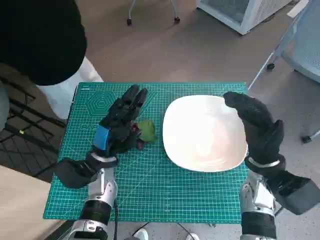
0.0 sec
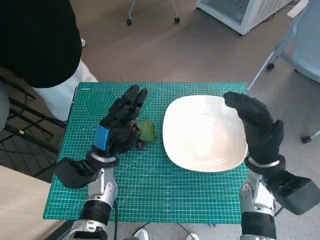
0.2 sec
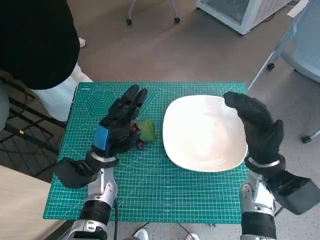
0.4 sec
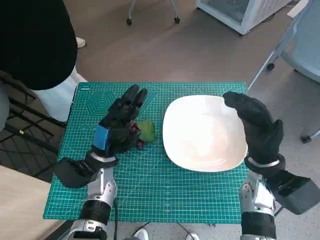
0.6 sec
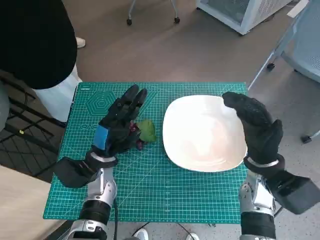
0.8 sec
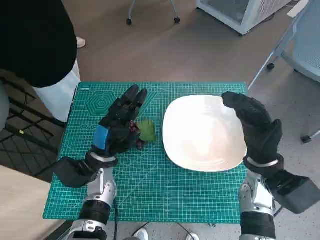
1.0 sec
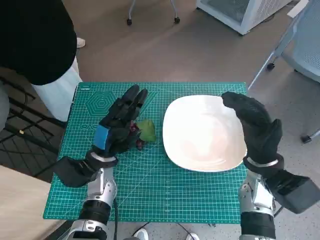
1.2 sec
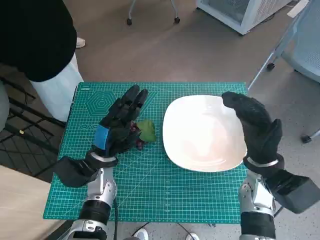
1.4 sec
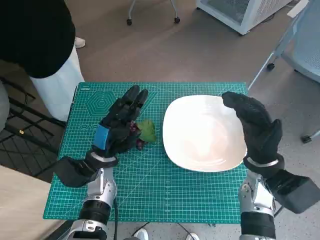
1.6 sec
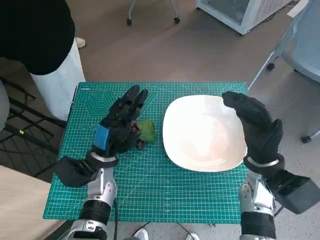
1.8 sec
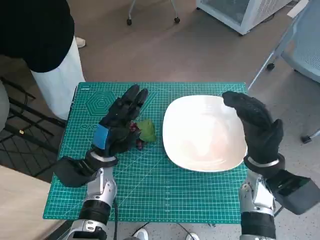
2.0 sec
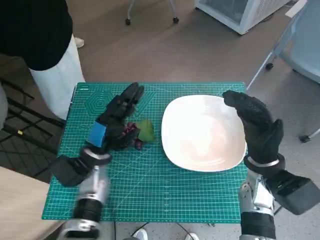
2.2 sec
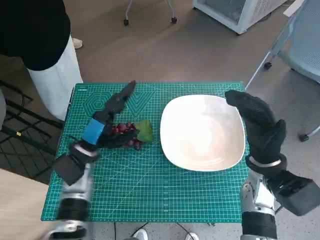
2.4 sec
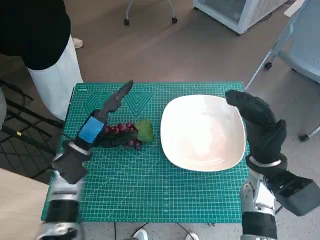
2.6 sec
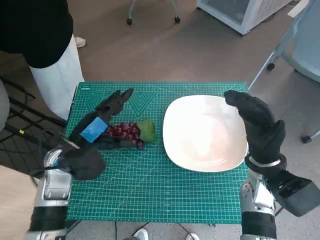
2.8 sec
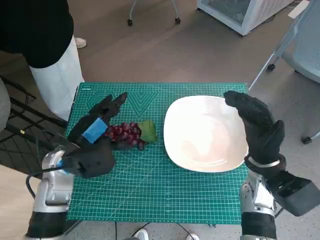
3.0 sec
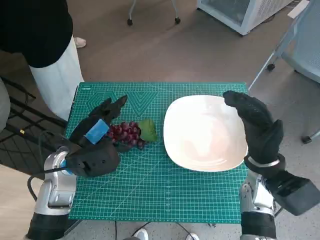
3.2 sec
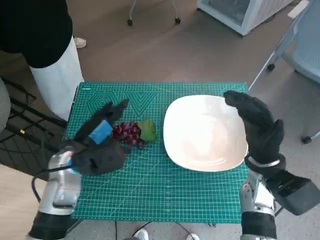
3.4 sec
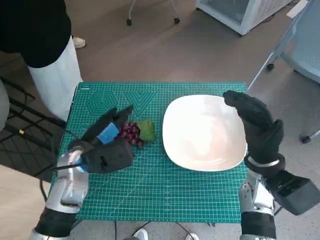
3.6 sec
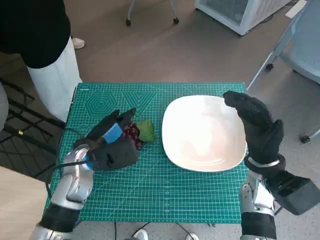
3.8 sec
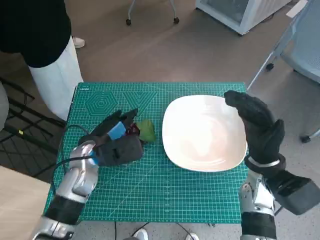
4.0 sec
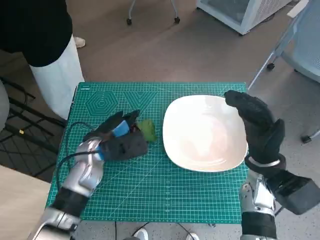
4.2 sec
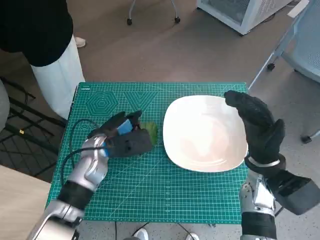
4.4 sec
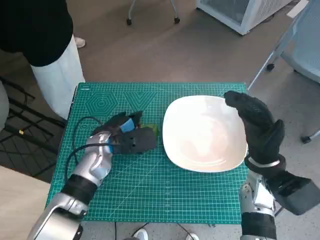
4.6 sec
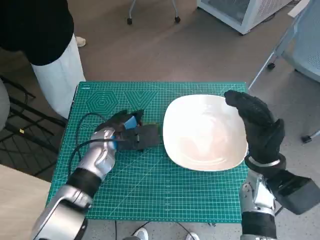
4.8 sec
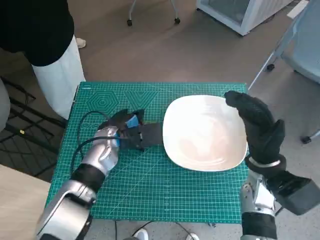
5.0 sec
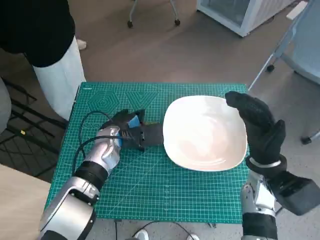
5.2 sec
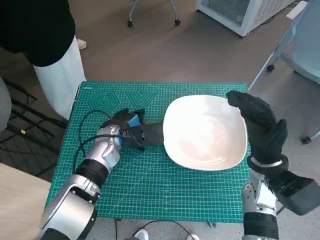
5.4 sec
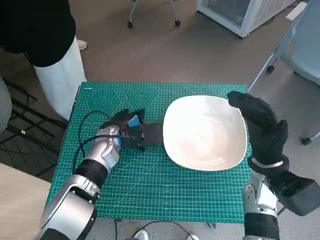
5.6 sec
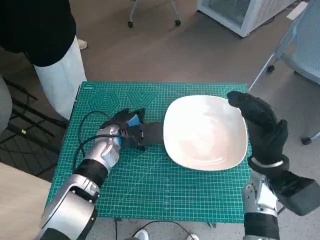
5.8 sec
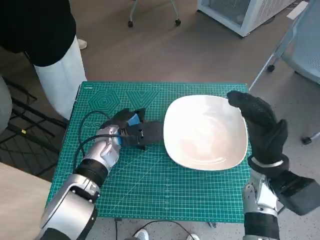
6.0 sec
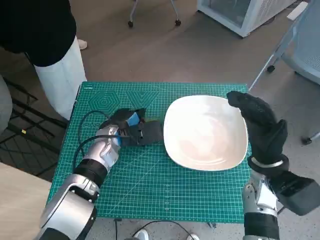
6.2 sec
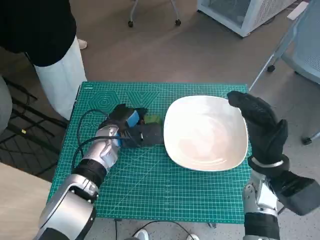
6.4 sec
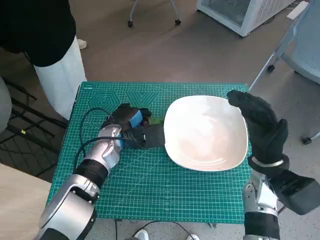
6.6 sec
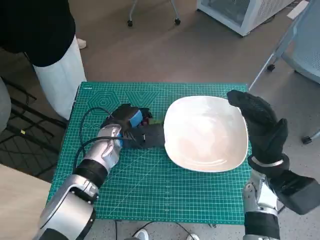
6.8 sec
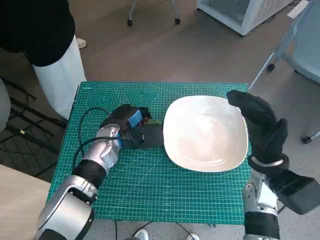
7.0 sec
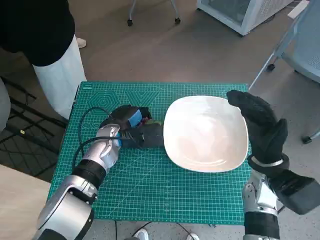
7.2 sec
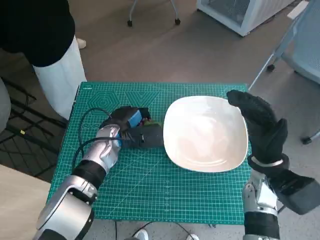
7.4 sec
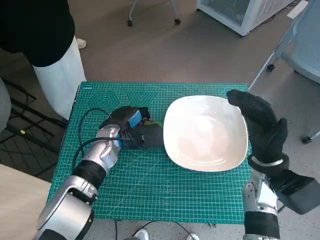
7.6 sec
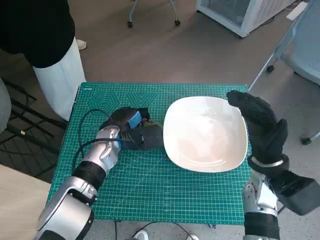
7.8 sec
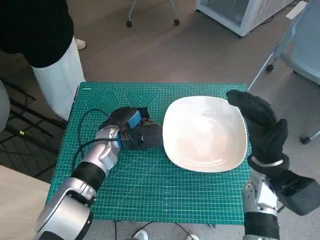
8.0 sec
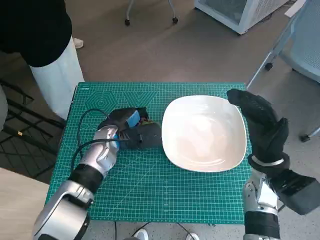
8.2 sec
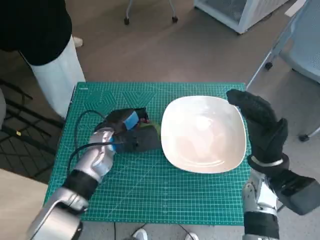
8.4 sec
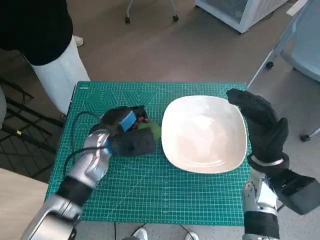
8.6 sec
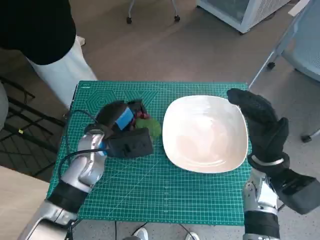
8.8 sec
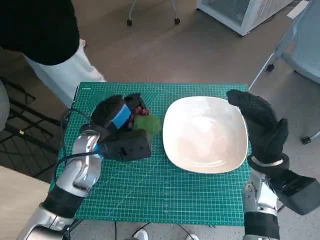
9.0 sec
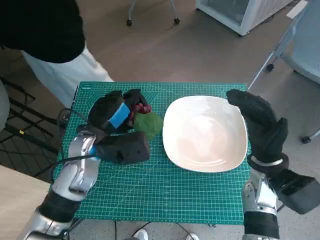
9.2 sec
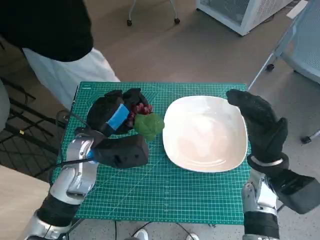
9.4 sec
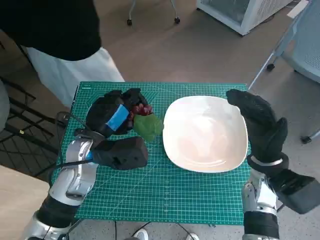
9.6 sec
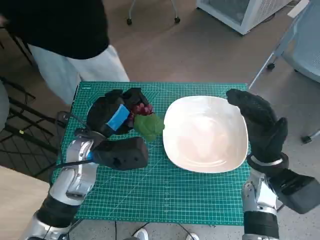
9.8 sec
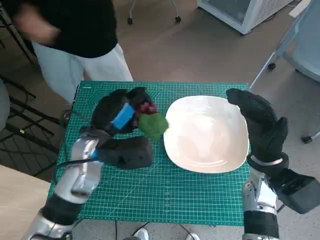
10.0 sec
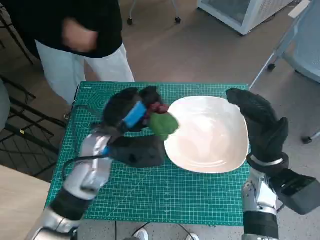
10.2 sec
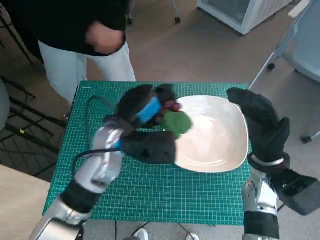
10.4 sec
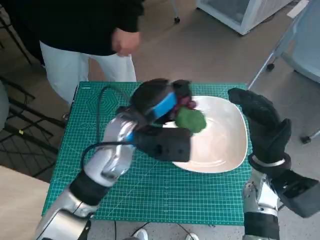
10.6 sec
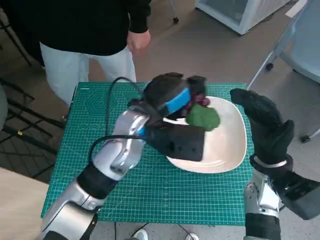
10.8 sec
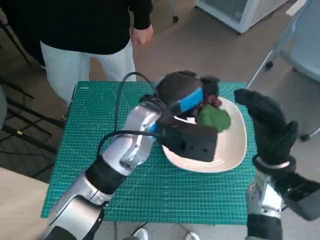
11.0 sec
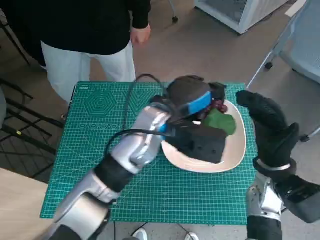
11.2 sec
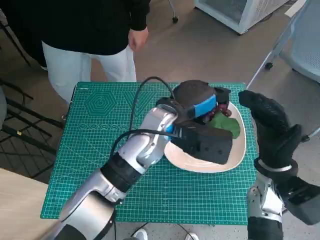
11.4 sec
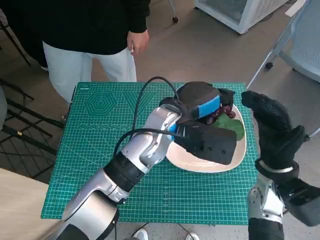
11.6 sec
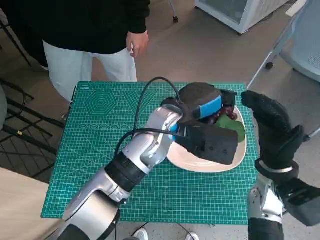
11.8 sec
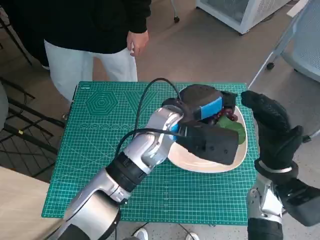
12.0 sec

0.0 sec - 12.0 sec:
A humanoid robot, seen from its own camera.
Task of the whole recording: Pick up the grapes and put them on the plate.
Step, 0.0 sec - 6.4 sec: Grasp the grapes with left hand.
1.6 sec - 3.0 sec: The left hand is displaced upward by roughly 5 cm.
3.0 sec - 4.4 sec: The left hand changes place by some 5 cm.
4.4 sec - 7.6 sec: The hands move only a little.
7.6 sec - 9.0 sec: The left hand changes place by roughly 5 cm.
9.0 sec - 10.4 sec: The left hand changes place by roughly 5 cm.
10.4 sec - 12.0 sec: The left hand shifts approximately 10 cm to the right.

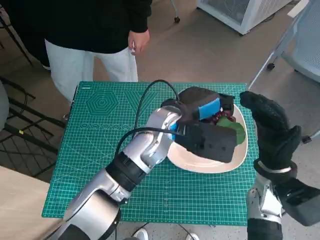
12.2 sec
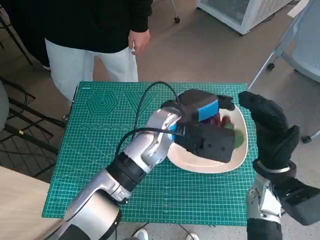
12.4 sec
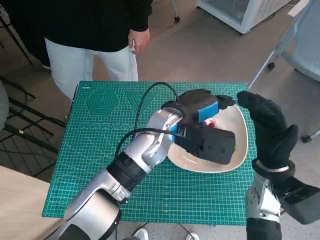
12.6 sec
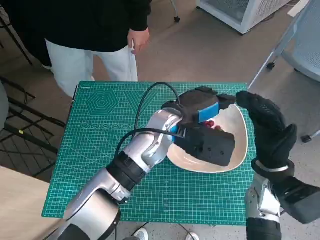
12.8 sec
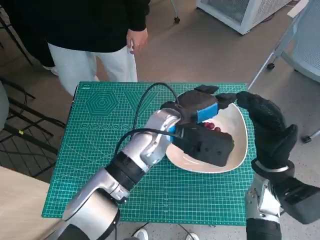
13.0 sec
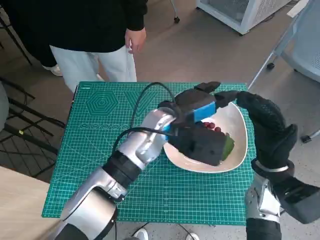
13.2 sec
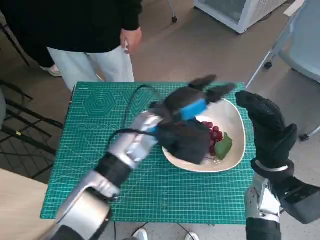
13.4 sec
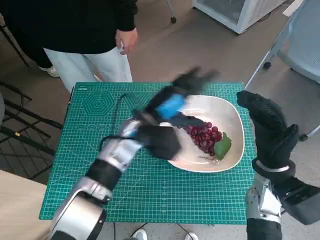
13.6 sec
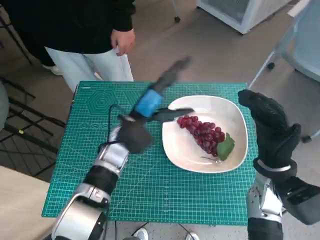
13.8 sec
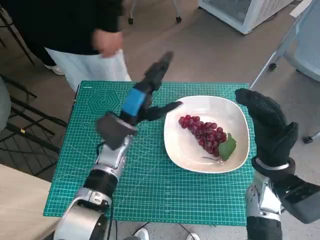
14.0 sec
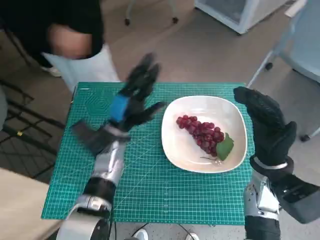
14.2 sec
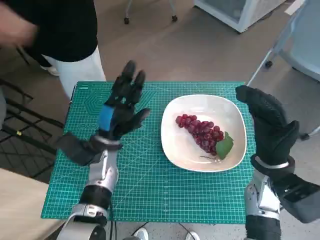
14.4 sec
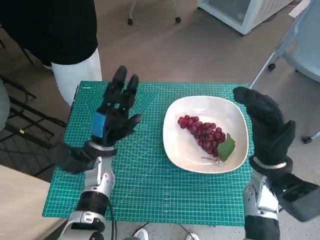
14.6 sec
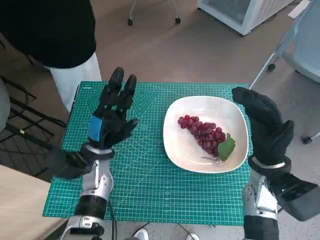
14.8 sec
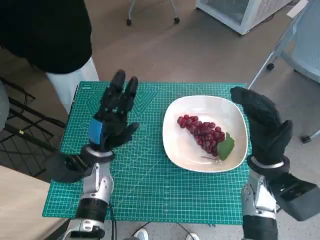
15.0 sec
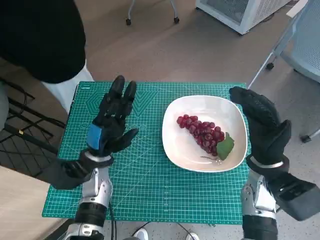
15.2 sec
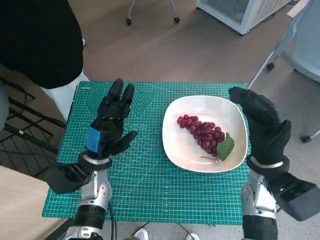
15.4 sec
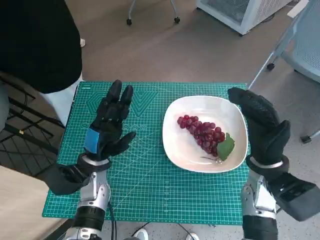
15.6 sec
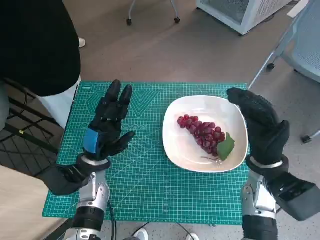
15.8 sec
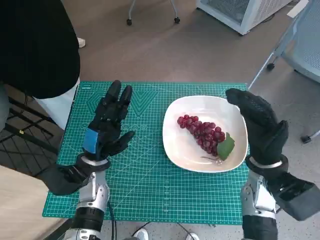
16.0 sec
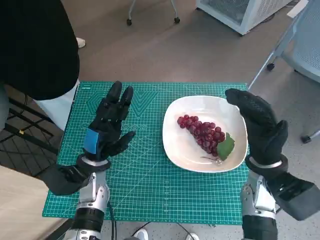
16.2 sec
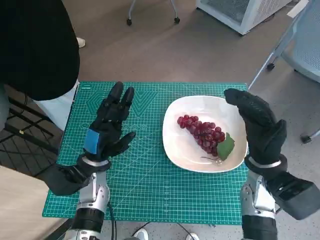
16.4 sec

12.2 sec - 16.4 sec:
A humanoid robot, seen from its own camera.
Task of the whole recording: Pick up the grapes and put them on the plate.
12.2 sec - 13.6 sec: The left hand moves to the left, some 5 cm.
13.6 sec - 15.0 sec: The left hand heads to the left and downward, covering about 15 cm.
15.0 sec - 16.4 sec: There are only small adjustments of the hands.

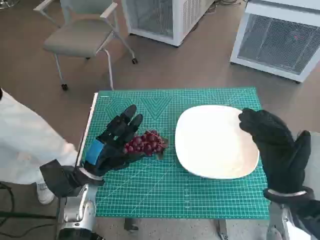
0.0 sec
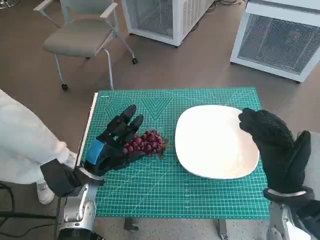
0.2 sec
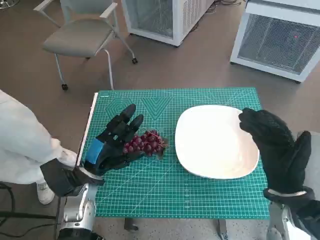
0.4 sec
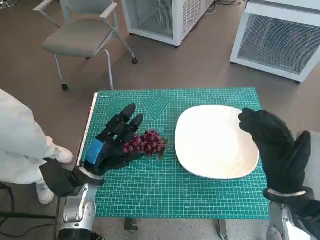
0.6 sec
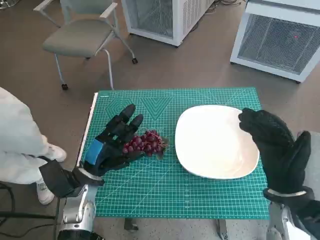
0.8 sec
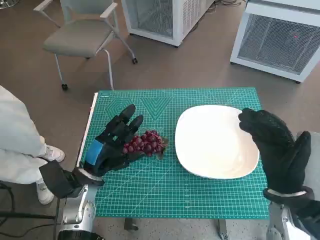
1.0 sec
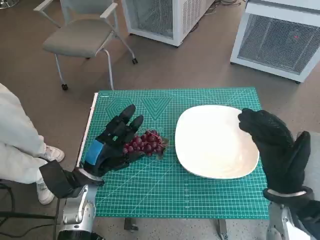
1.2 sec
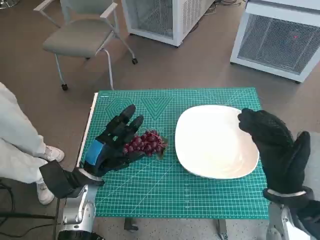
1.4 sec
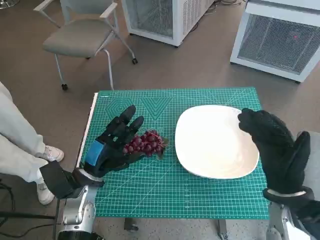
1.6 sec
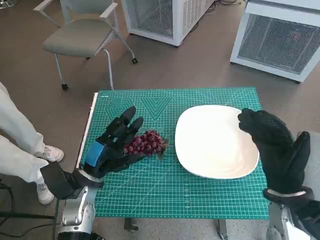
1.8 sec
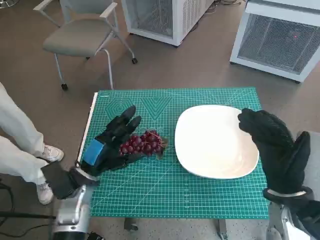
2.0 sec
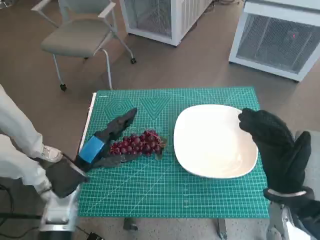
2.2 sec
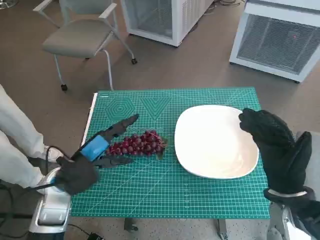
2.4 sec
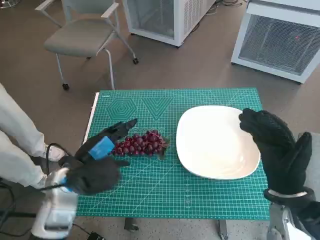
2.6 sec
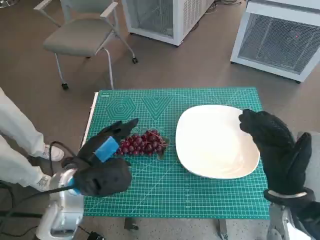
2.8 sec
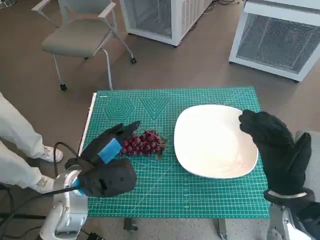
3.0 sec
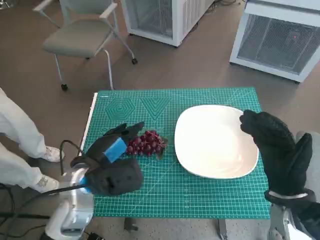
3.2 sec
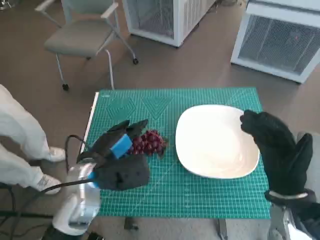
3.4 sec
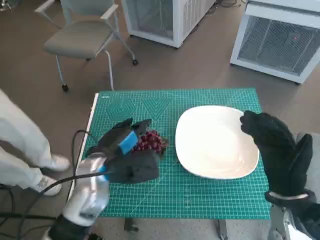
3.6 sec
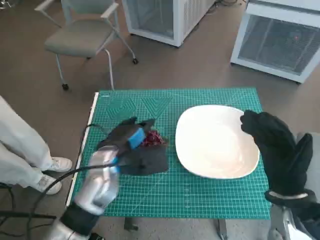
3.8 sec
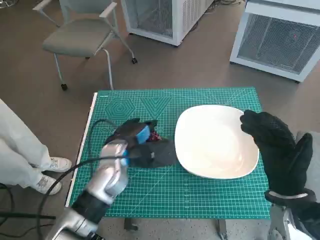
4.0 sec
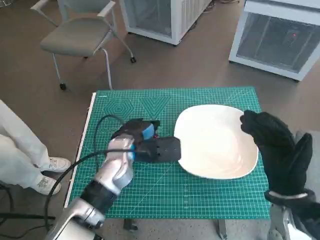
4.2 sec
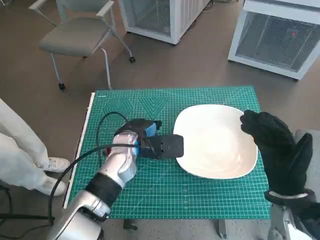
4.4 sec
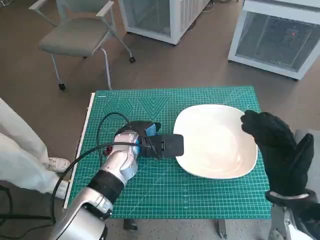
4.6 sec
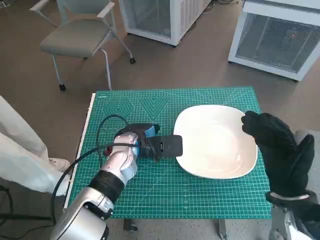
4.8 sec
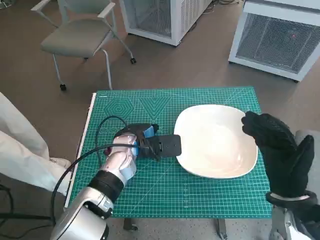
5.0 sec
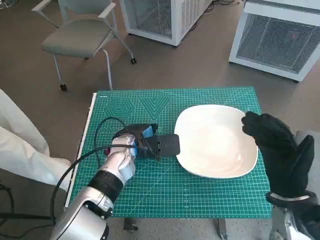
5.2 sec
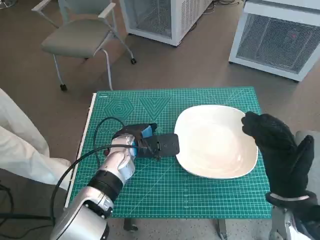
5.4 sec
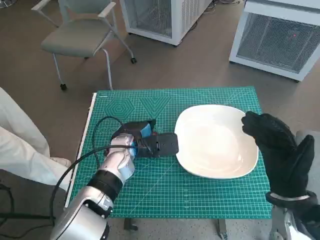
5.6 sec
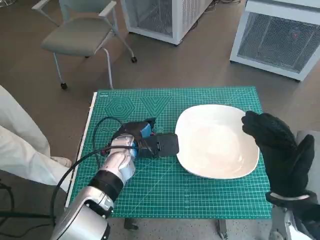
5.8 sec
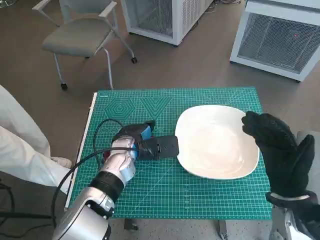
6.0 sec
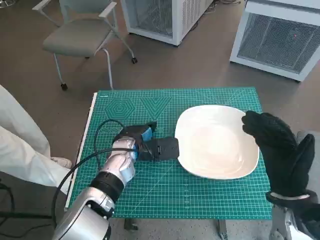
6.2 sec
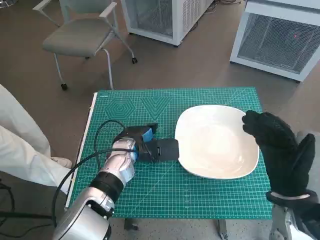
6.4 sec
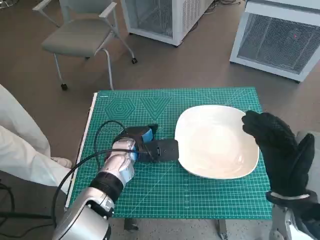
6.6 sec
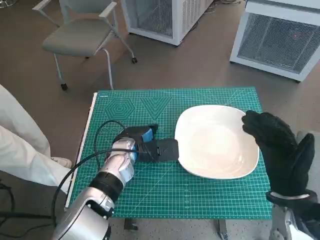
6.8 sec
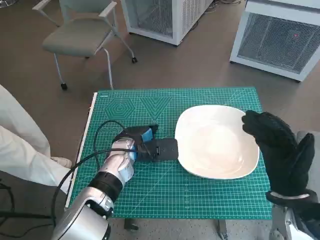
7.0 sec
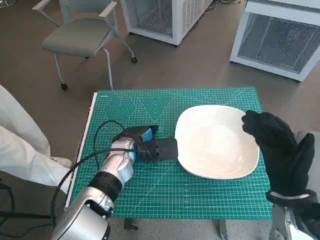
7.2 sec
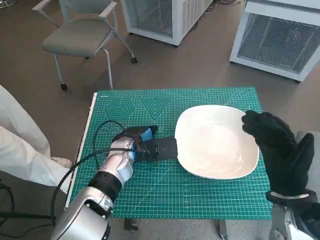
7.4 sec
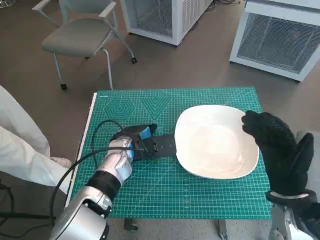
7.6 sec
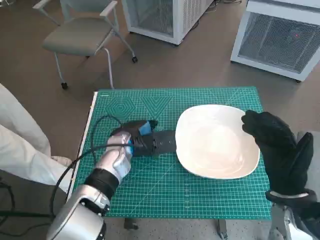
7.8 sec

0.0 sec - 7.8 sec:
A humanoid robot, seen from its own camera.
Task of the whole recording: Pick up the grapes and put them on the plate.
Step, 0.0 sec - 7.2 sec: Grasp the grapes with left hand.
1.6 sec - 3.2 sec: The left hand heads upward, covering some 5 cm.
3.2 sec - 4.6 sec: The left hand goes roughly 10 cm forward and to the right.
4.6 sec - 7.8 sec: The hands make only small movements.
